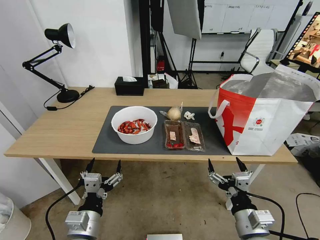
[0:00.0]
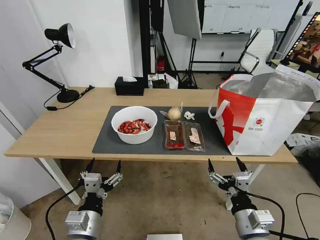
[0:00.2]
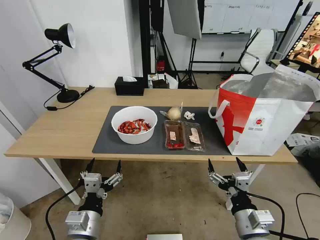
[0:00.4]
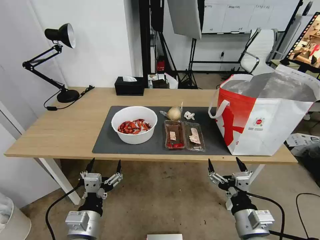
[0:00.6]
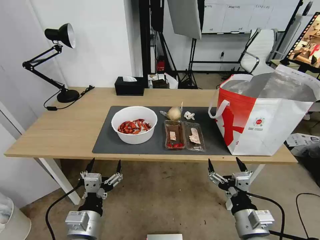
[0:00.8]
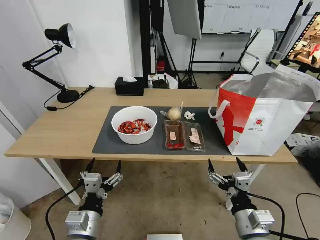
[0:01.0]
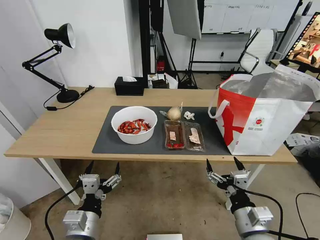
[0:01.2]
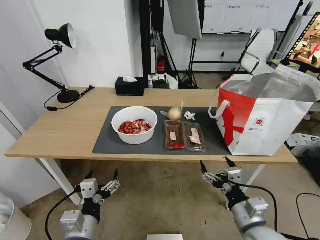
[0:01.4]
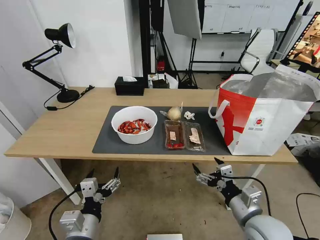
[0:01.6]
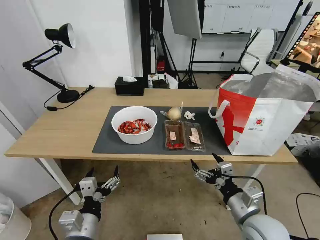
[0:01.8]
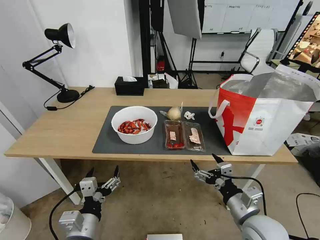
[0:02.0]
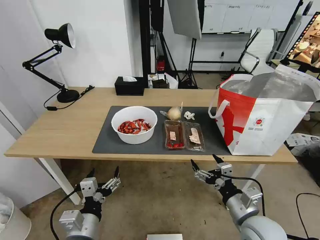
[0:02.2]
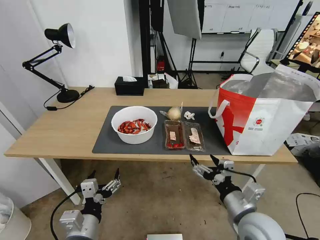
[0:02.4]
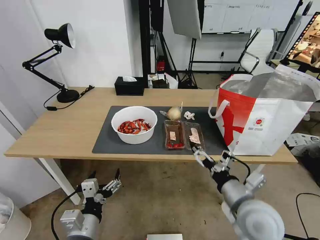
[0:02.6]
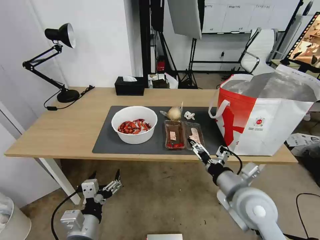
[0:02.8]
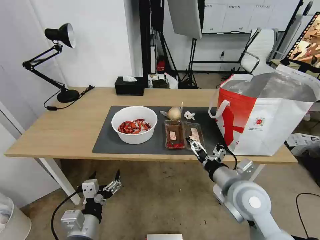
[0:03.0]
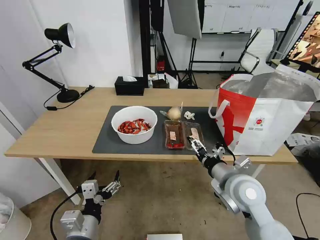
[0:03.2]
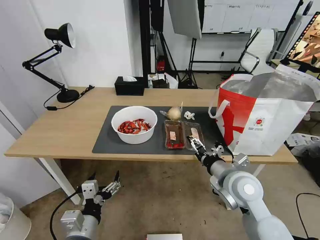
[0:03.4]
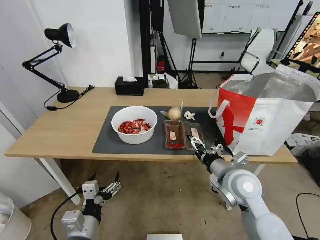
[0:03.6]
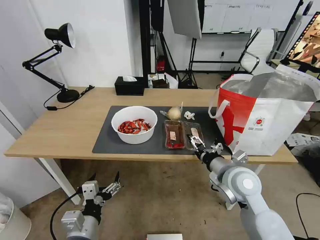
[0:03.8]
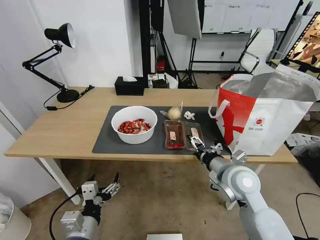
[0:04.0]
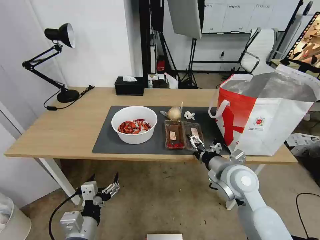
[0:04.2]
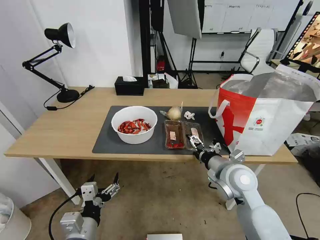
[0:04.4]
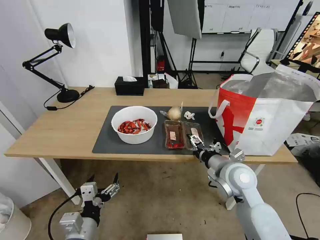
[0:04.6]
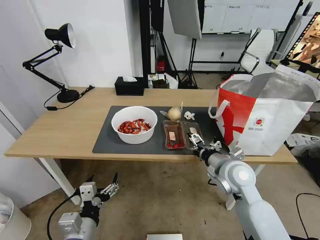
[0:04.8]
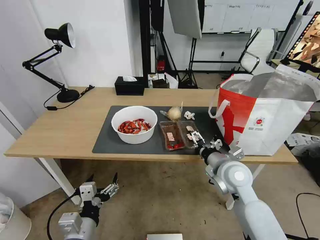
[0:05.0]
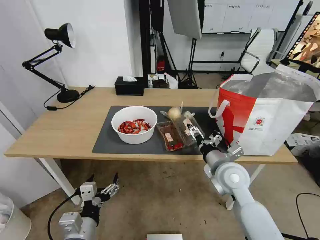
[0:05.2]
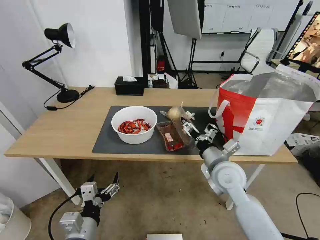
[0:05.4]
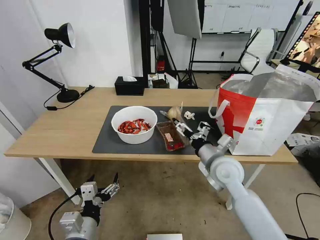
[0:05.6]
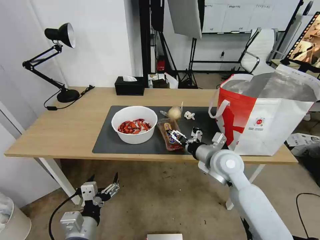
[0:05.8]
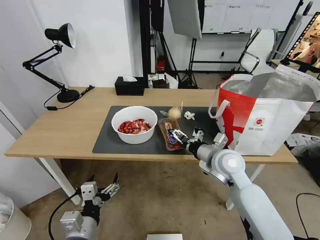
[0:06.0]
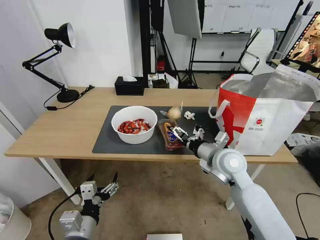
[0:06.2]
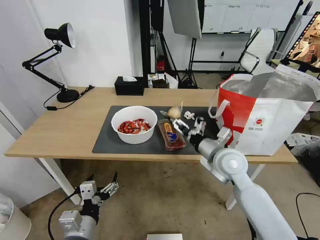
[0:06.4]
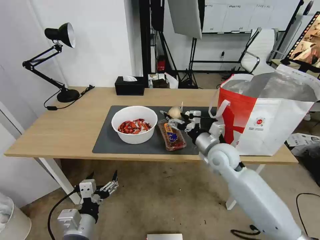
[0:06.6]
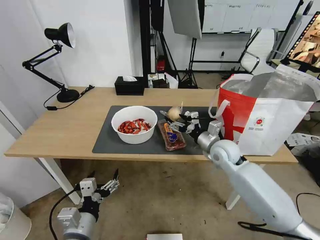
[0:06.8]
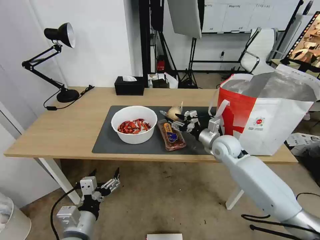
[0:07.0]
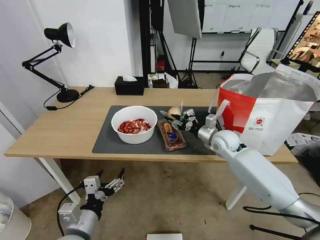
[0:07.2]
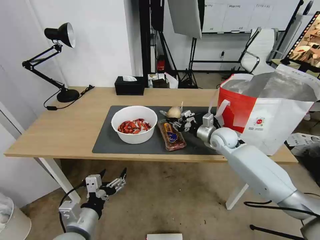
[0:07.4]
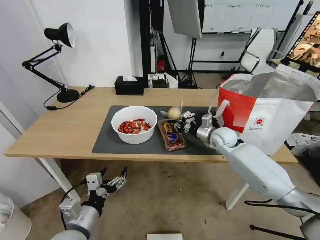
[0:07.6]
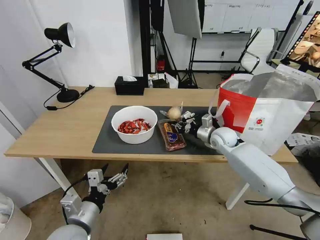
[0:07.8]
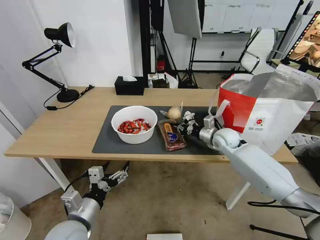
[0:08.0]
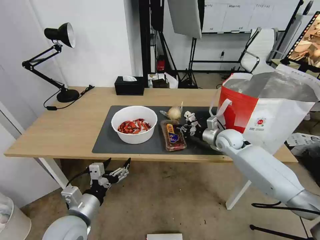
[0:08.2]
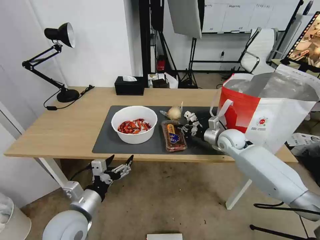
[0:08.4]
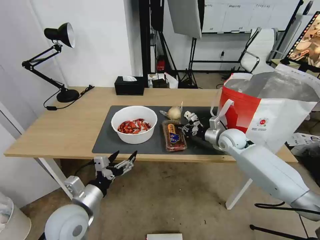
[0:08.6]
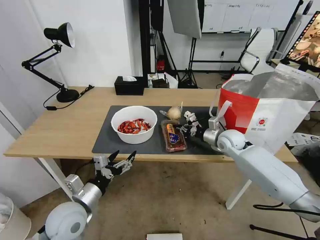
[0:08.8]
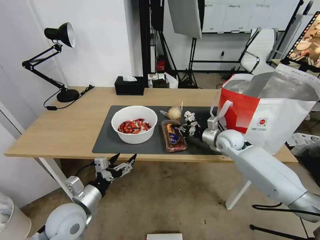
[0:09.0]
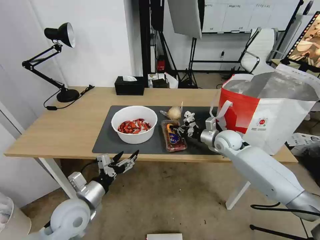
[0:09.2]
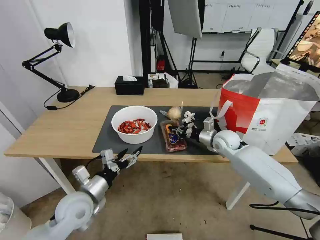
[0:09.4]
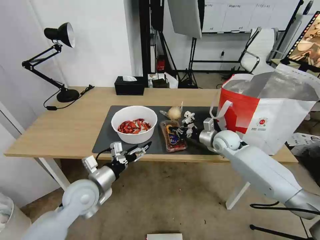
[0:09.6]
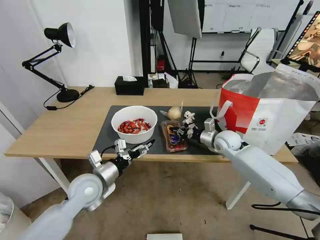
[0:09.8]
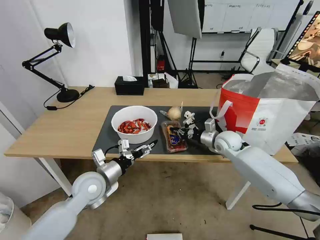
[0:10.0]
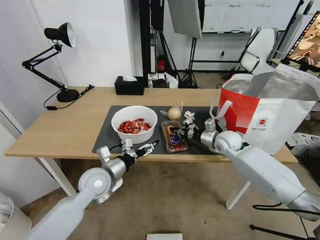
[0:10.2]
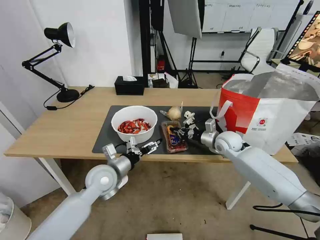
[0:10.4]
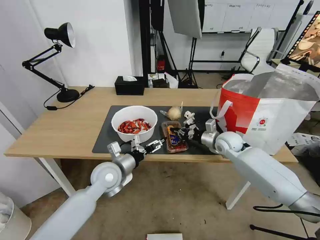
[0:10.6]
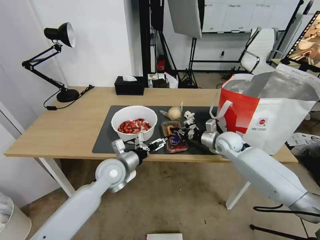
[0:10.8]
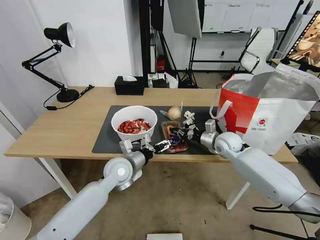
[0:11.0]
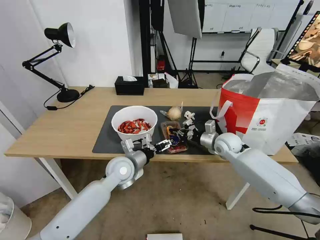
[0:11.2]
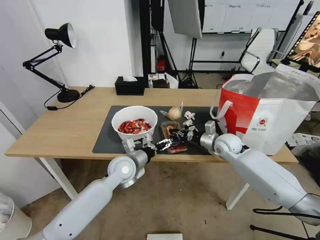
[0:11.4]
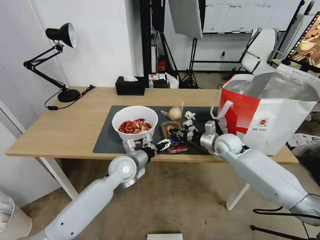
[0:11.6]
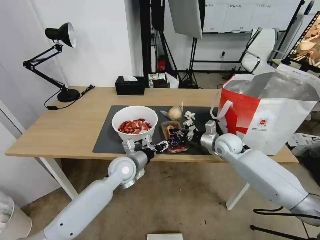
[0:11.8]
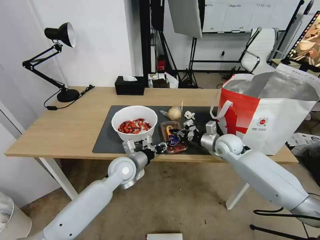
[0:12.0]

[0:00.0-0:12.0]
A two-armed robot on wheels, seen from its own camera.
Task of the whole recording: Pick up the trash from the table and place it into the takeout bag.
0:01.6 to 0:03.0: The right gripper shifts some 5 cm forward.
0:03.0 to 0:04.4: The right gripper heads forward, covering approximately 5 cm.
0:04.4 to 0:06.0: The right gripper ends up approximately 5 cm from where it was.
0:06.0 to 0:07.6: The right gripper shifts some 15 cm forward, and closes its fingers.
0:07.6 to 0:09.0: The left gripper moves forward, approximately 5 cm.
0:09.0 to 0:10.4: The left gripper moves forward and to the right, some 15 cm.
0:10.4 to 0:12.0: The left gripper shifts about 5 cm to the right, and closes.

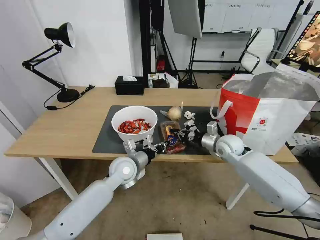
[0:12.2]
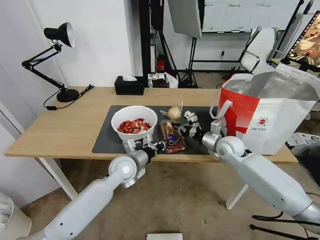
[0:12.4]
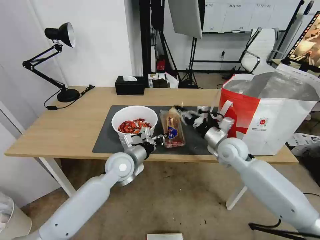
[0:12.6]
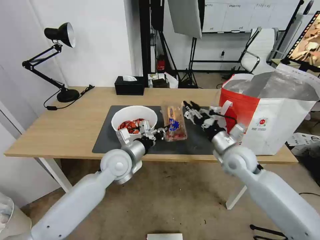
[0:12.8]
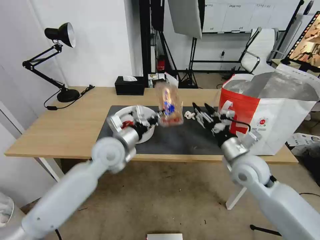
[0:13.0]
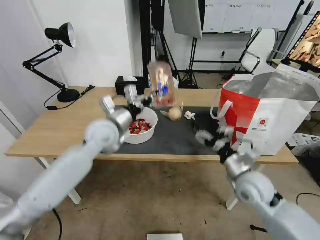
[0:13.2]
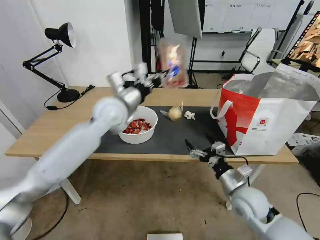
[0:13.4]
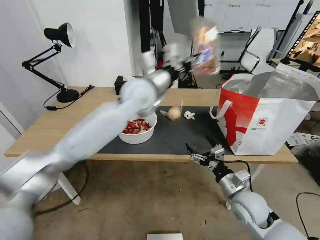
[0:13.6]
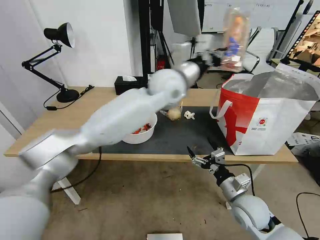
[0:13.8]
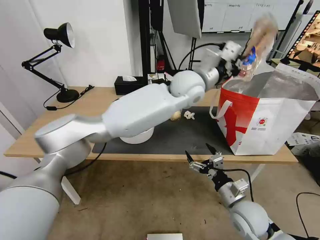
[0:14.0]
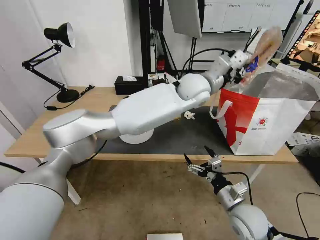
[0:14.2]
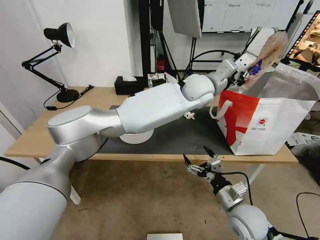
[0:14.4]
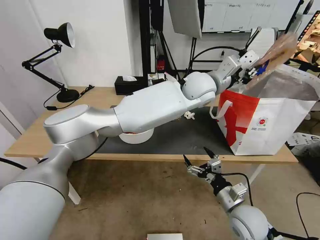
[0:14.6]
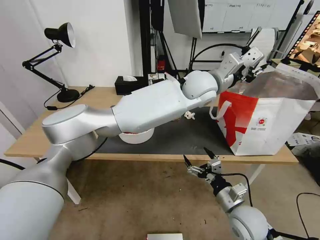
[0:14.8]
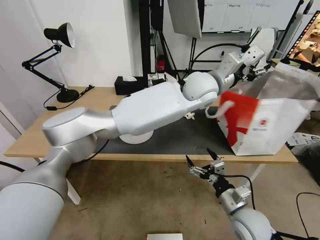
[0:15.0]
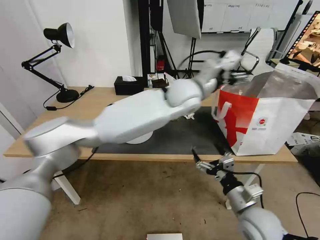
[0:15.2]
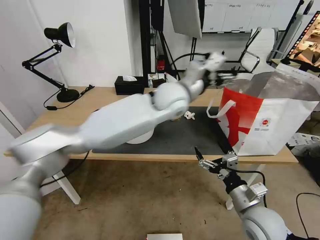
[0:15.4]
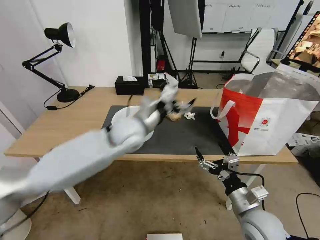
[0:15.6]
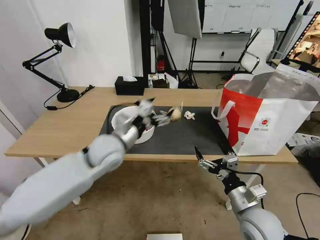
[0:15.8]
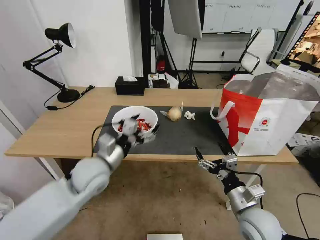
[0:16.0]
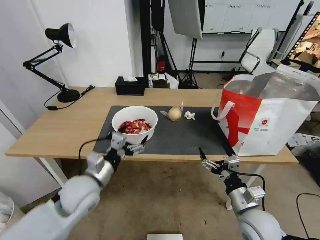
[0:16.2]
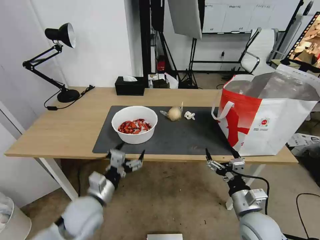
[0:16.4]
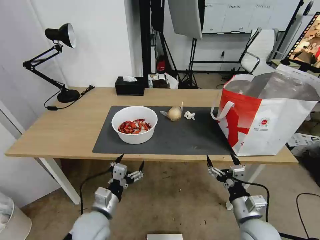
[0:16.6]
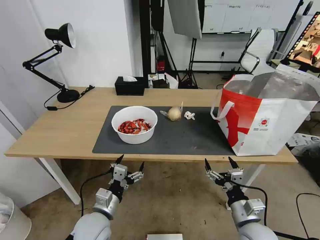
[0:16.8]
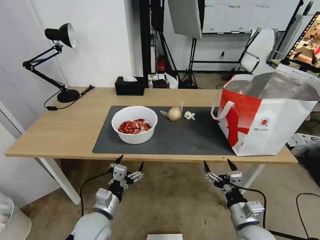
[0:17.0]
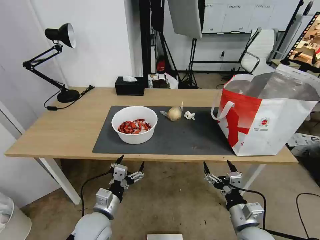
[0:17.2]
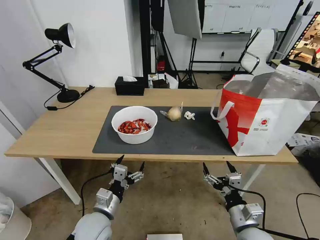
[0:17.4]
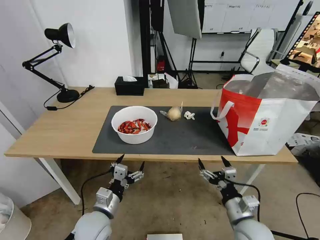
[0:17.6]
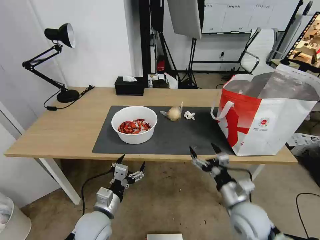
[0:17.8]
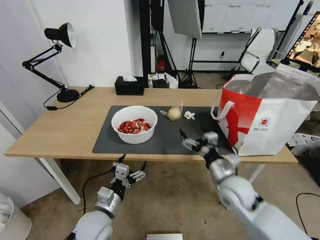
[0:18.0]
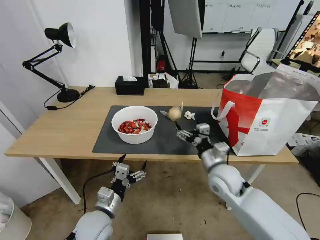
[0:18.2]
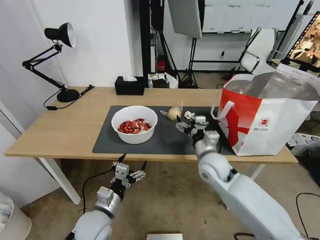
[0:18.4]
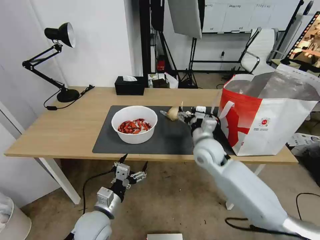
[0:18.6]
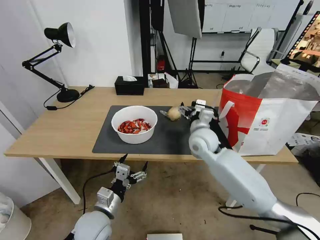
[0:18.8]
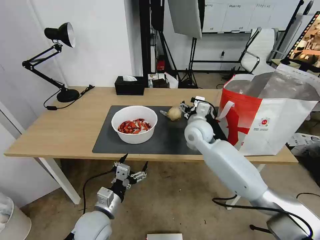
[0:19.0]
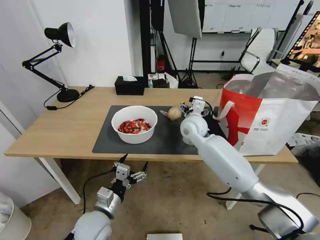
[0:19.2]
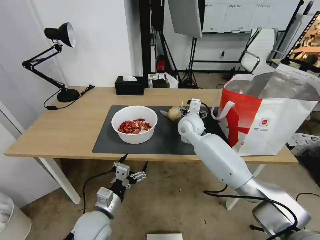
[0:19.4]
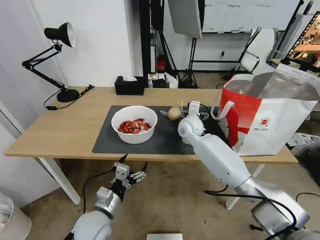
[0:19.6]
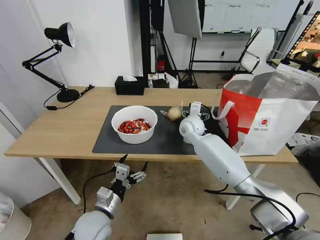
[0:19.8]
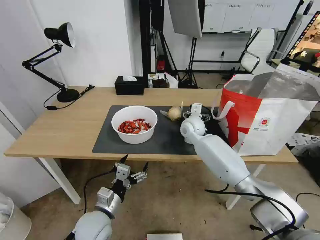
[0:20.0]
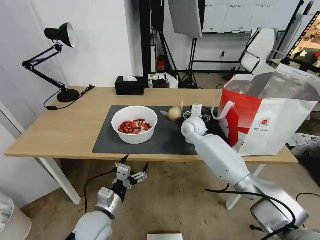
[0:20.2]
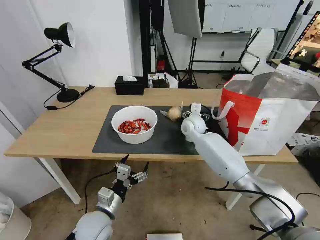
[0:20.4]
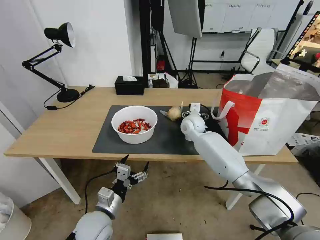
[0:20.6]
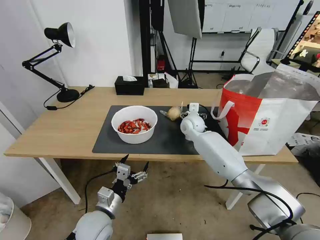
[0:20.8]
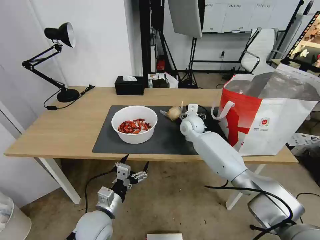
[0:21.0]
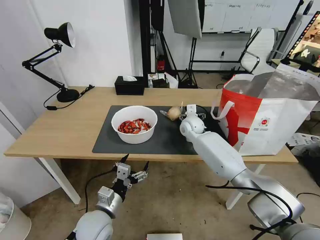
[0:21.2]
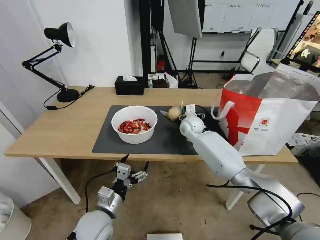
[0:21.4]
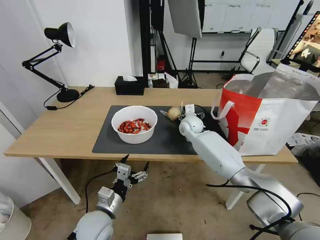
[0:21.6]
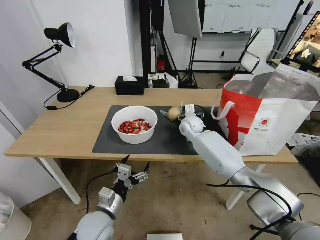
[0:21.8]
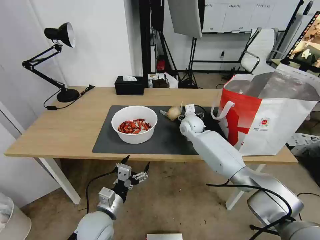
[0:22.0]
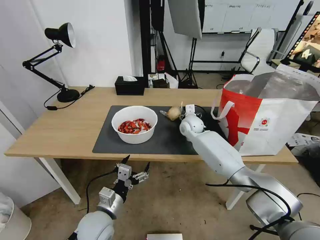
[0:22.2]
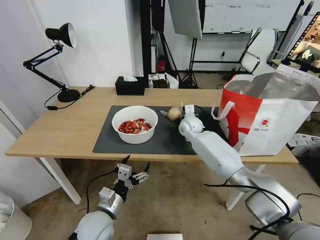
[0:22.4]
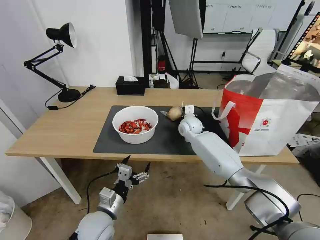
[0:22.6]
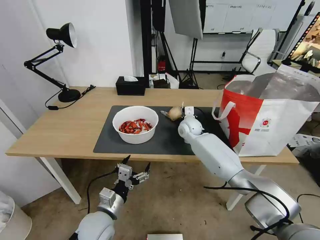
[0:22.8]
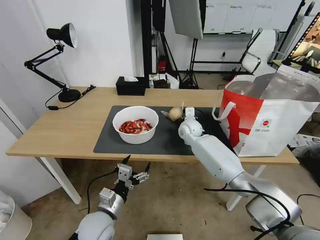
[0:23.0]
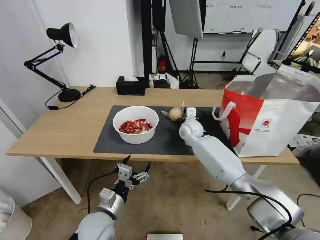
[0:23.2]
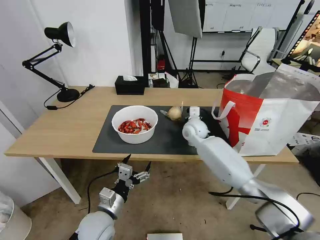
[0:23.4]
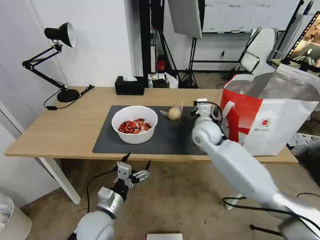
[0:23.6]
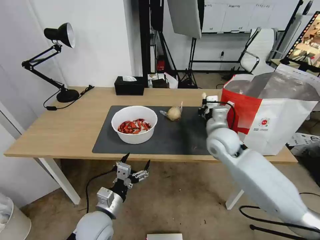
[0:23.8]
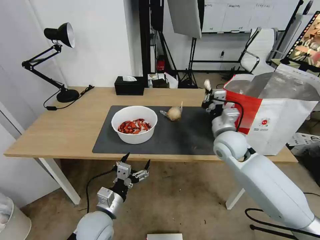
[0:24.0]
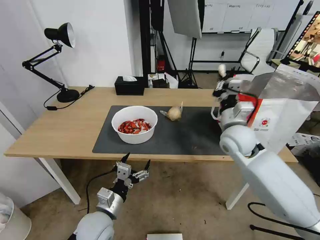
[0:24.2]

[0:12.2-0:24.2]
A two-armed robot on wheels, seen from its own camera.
Task of the whole recording: Pick up the trash from the table and place it into the takeout bag.
0:12.2 to 0:13.8: The left gripper travels upward and to the right by approximately 30 cm; the right gripper moves backward, about 20 cm, and opens up.
0:13.8 to 0:15.2: The right gripper moves approximately 5 cm. The left gripper opens.
0:15.2 to 0:16.6: The left gripper goes some 50 cm downward, backward and to the left.
0:16.6 to 0:18.2: The right gripper is displaced forward, to the left and upward by roughly 15 cm.
0:18.2 to 0:19.8: The right gripper heads forward, covering roughly 20 cm.
0:19.8 to 0:21.2: The grippers make only small movements.
0:21.2 to 0:22.6: The right gripper closes up.
0:22.6 to 0:24.2: The right gripper shifts roughly 20 cm backward, upward and to the right, and closes.
